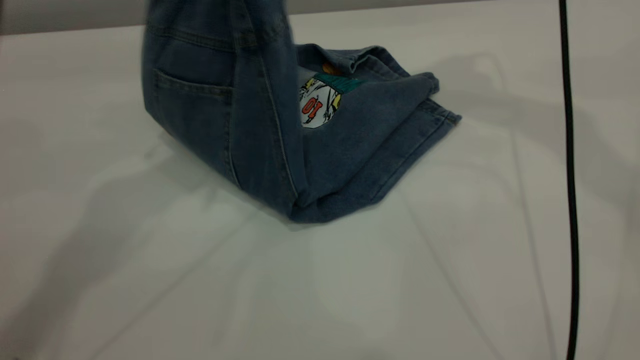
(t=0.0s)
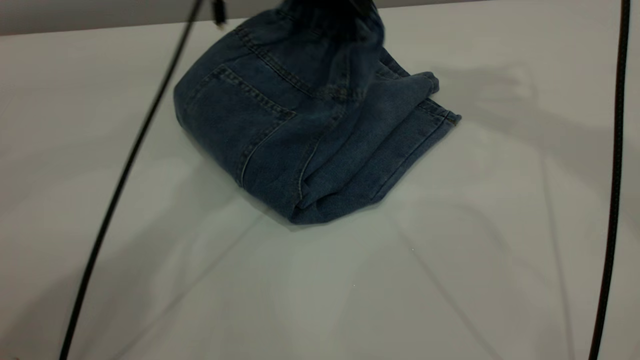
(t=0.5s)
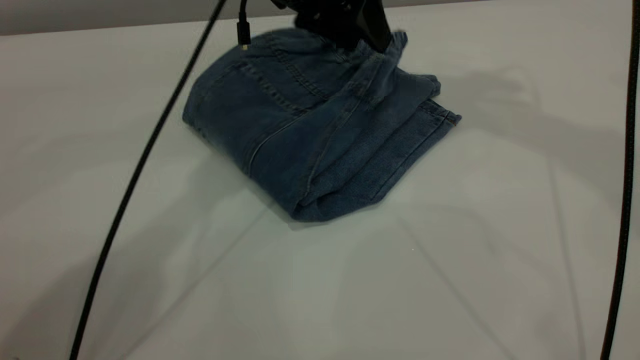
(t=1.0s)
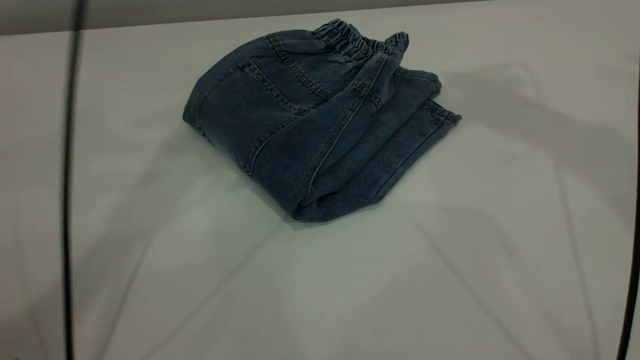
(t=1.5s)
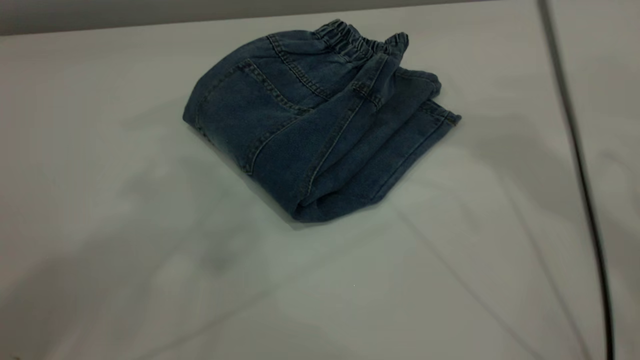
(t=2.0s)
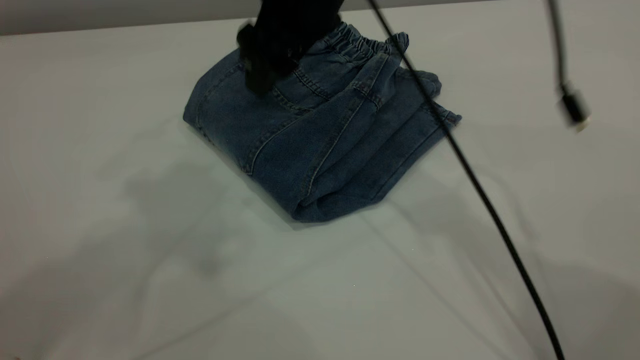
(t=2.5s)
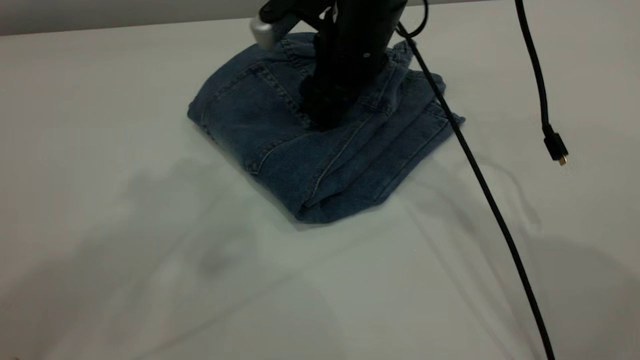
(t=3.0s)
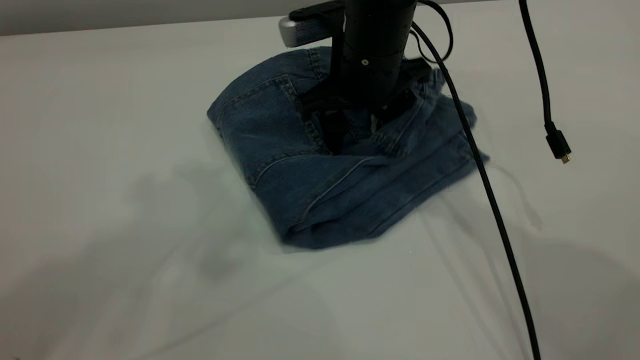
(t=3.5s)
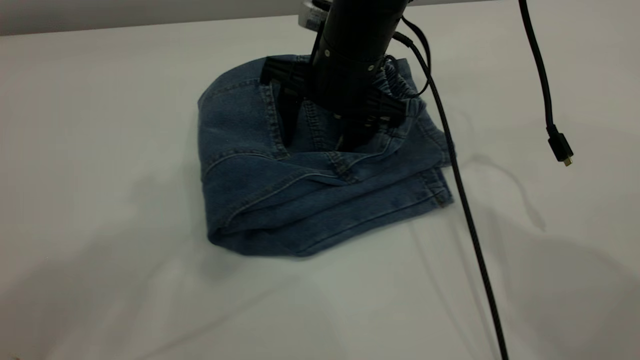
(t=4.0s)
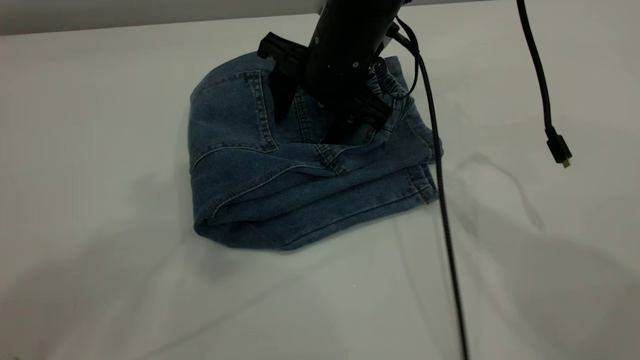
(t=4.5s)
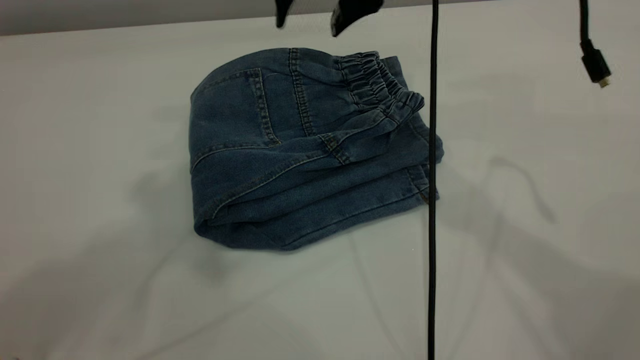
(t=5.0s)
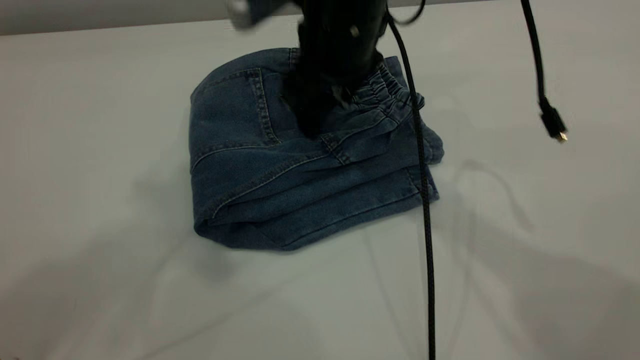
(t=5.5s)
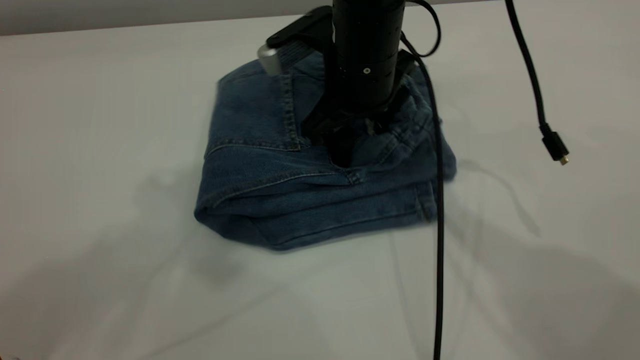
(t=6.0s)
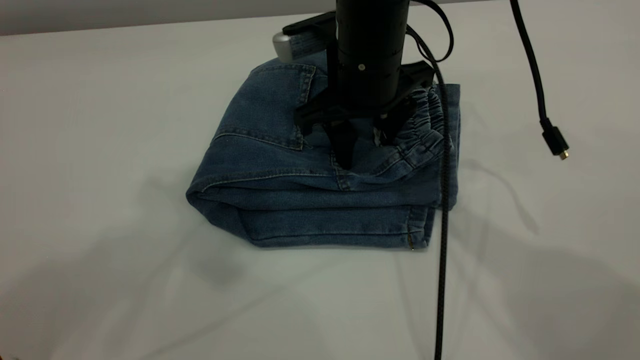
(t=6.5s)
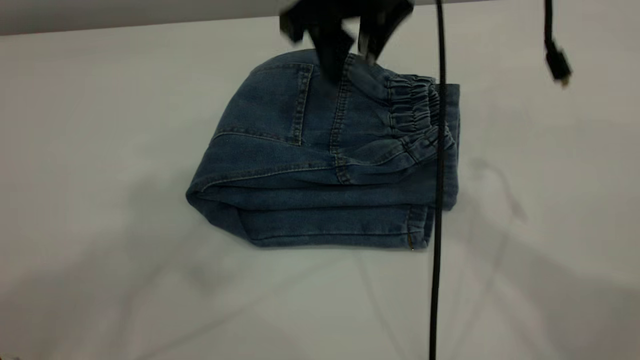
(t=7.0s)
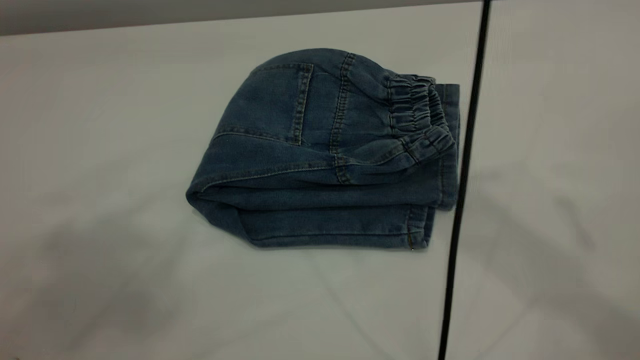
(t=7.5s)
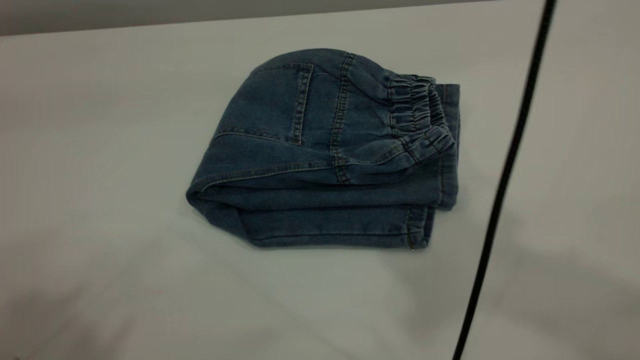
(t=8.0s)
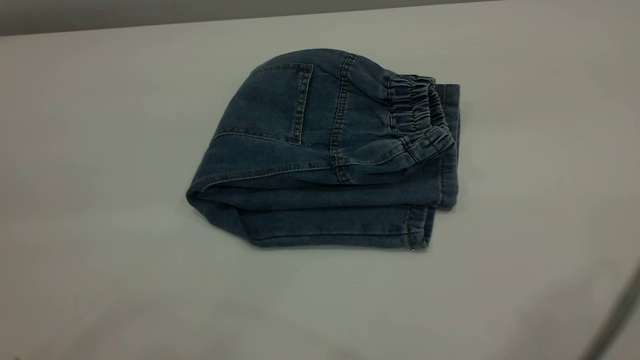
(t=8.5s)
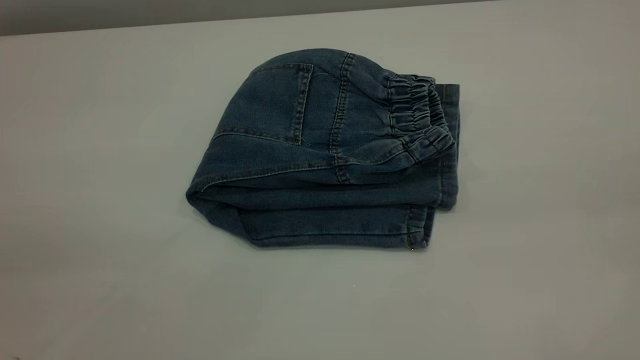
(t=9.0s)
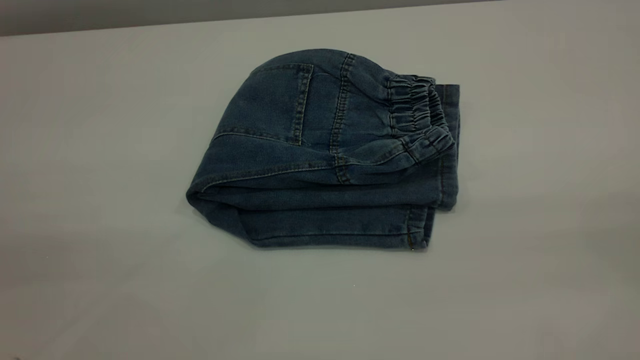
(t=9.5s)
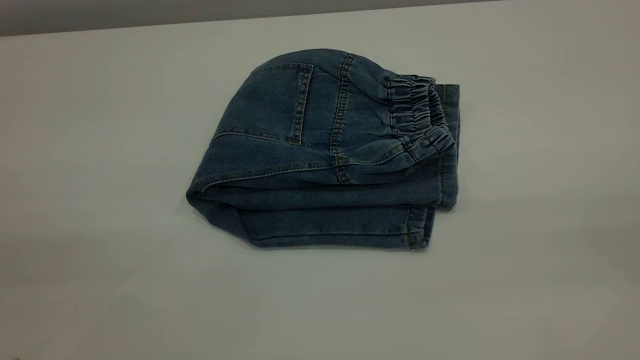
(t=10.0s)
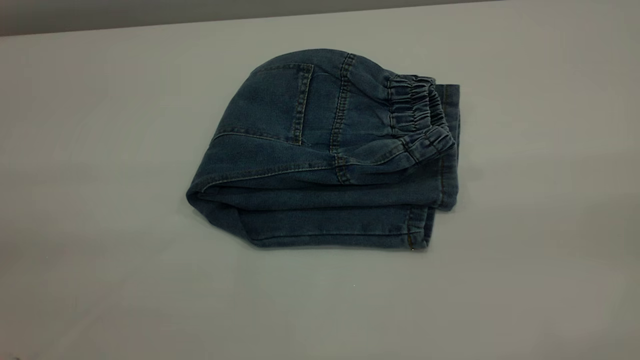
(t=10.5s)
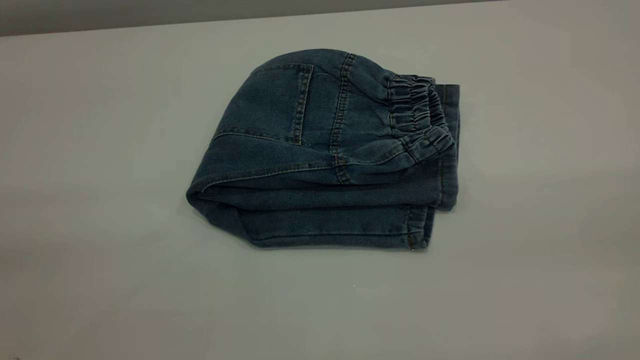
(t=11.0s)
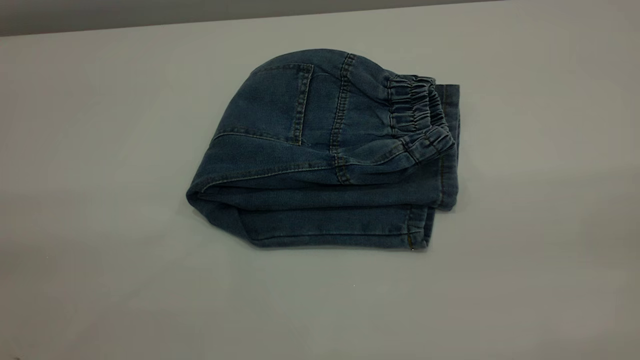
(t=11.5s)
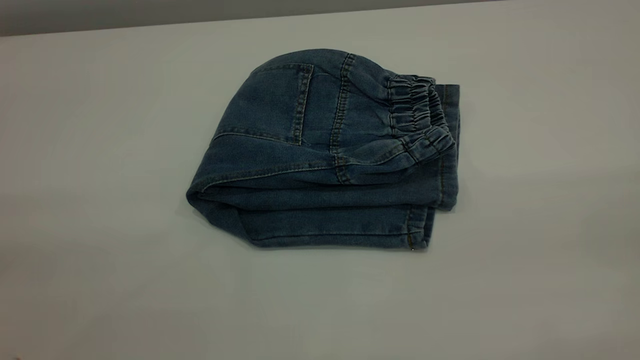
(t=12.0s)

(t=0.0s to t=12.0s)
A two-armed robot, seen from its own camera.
t=0.0s - t=2.0s: The right gripper shifts about 5 cm to the left, and goes upward and returns, roughly 10 cm each way. Meanwhile the left gripper shifts about 25 cm upward and backward, and opens up.
t=2.0s - t=4.0s: The right gripper travels downward and to the left by some 20 cm.
t=4.0s - t=6.0s: The right gripper goes upward and returns, some 10 cm each way.
t=6.0s - t=8.0s: The right gripper goes roughly 40 cm upward and backward. Meanwhile the left gripper heads backward and to the left, covering roughly 15 cm.
t=8.0s - t=10.0s: The right gripper heads backward, to the right and downward, covering approximately 30 cm.
